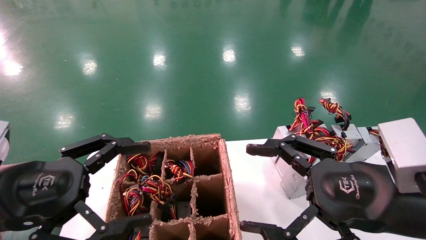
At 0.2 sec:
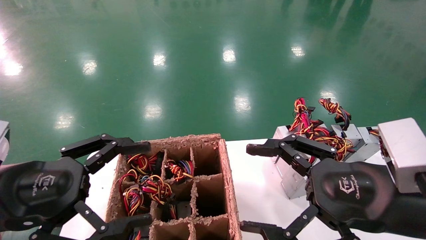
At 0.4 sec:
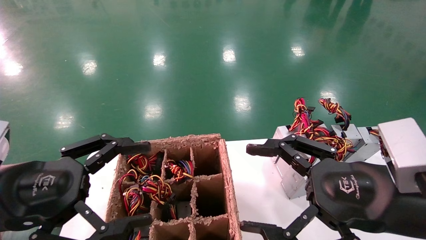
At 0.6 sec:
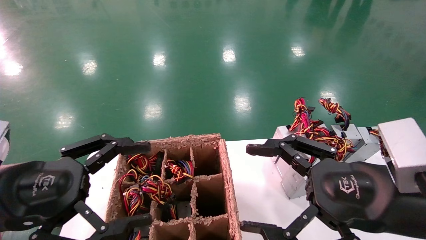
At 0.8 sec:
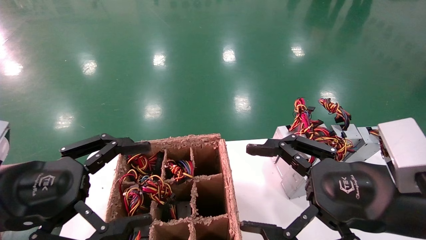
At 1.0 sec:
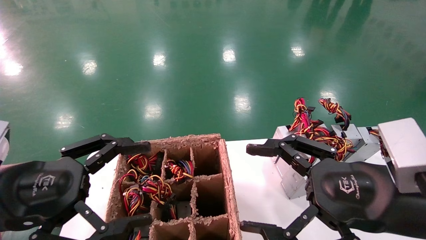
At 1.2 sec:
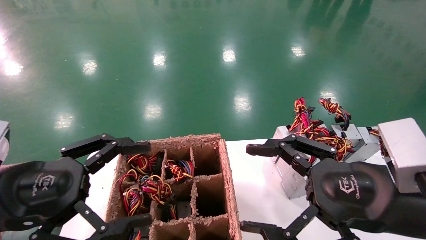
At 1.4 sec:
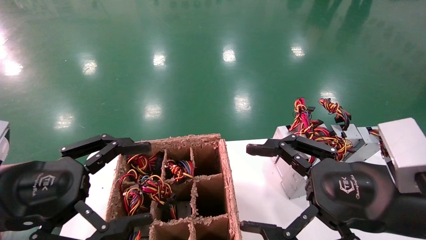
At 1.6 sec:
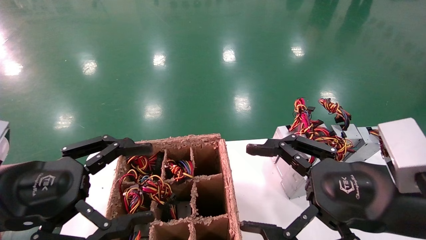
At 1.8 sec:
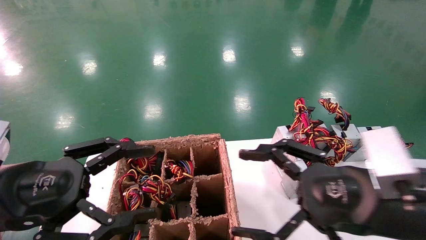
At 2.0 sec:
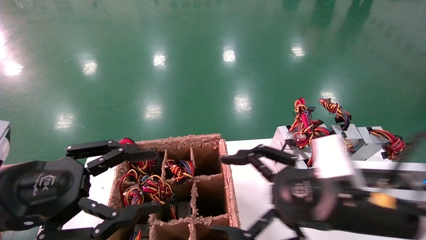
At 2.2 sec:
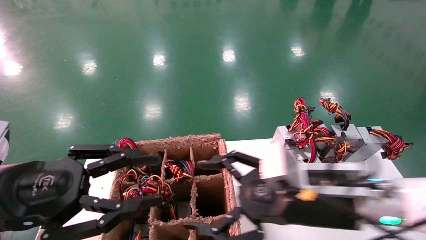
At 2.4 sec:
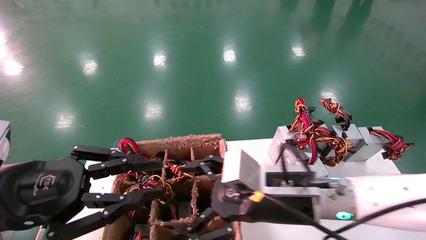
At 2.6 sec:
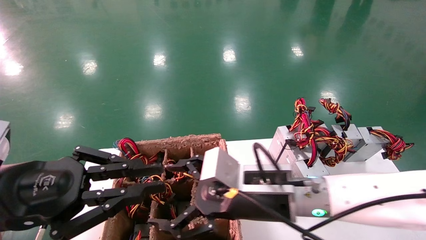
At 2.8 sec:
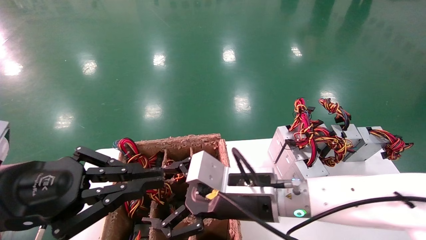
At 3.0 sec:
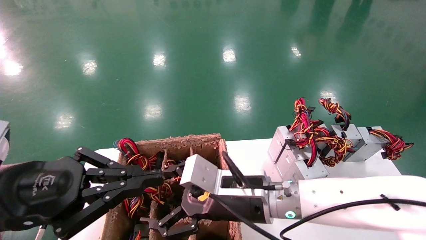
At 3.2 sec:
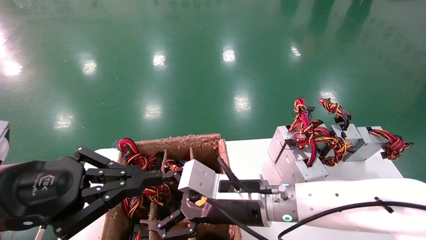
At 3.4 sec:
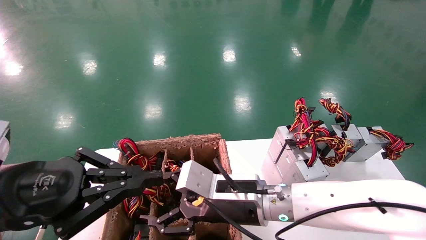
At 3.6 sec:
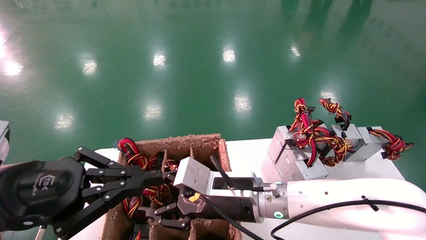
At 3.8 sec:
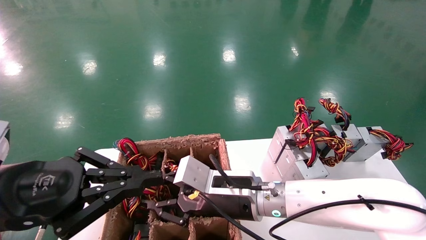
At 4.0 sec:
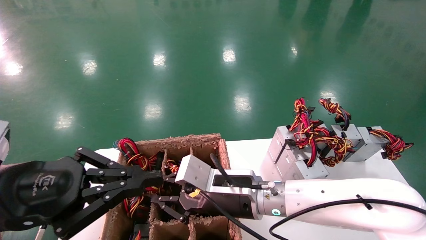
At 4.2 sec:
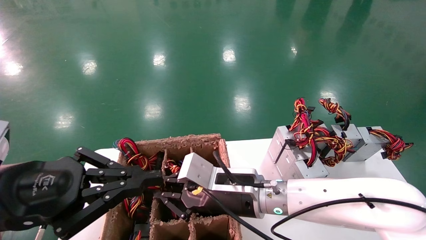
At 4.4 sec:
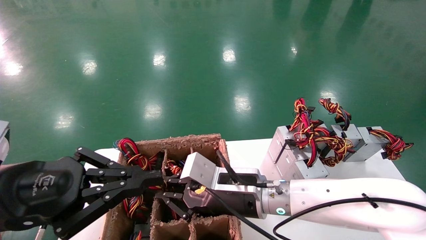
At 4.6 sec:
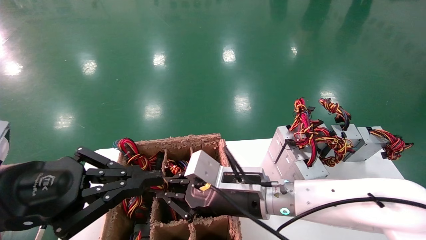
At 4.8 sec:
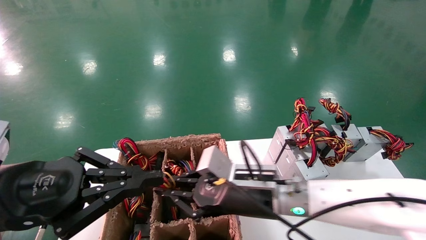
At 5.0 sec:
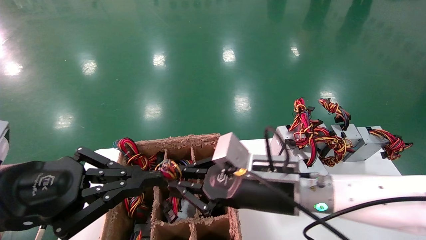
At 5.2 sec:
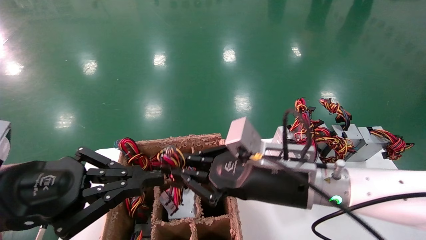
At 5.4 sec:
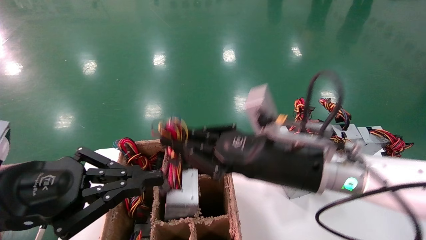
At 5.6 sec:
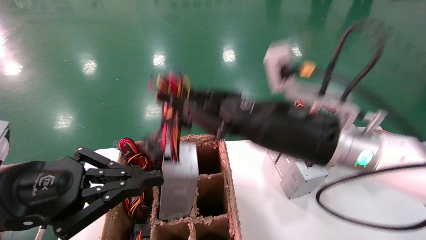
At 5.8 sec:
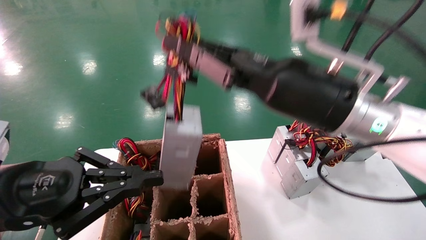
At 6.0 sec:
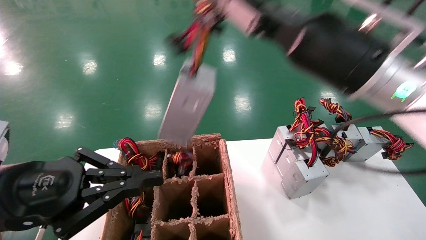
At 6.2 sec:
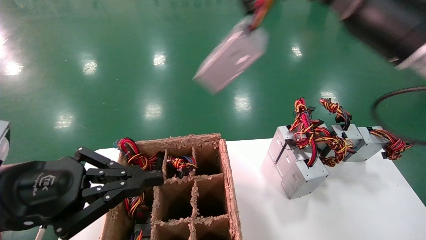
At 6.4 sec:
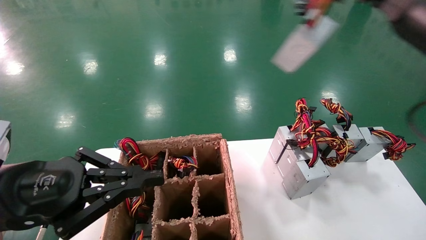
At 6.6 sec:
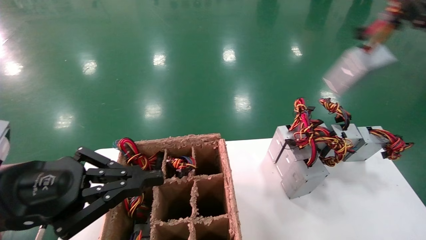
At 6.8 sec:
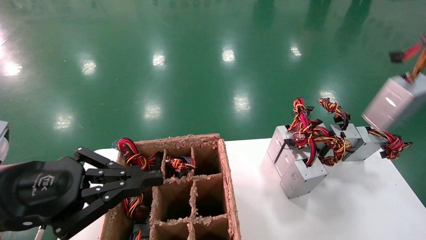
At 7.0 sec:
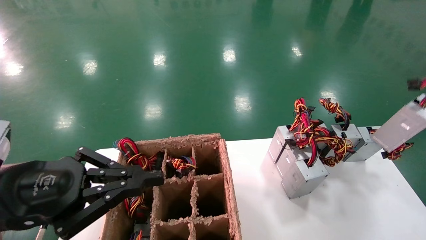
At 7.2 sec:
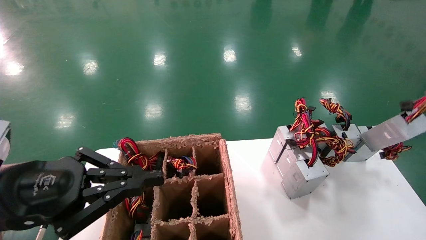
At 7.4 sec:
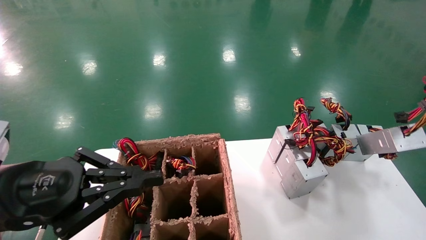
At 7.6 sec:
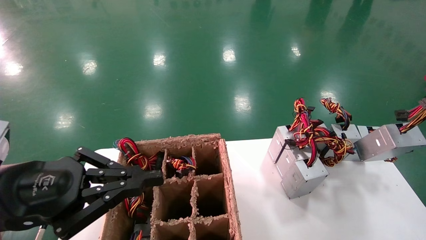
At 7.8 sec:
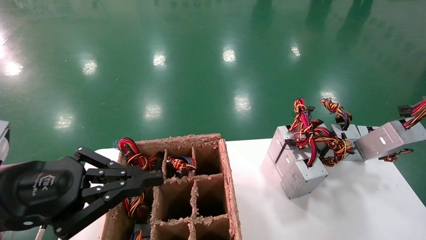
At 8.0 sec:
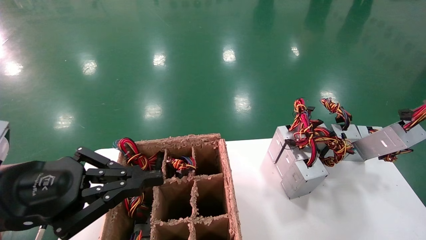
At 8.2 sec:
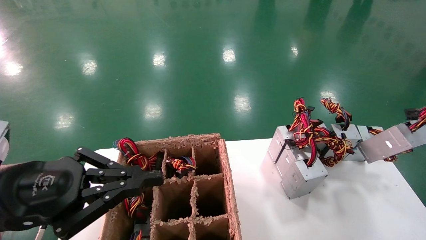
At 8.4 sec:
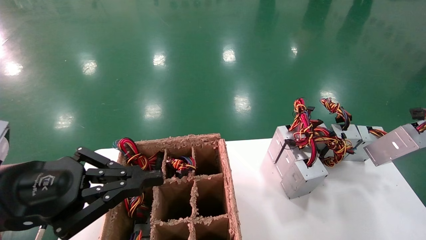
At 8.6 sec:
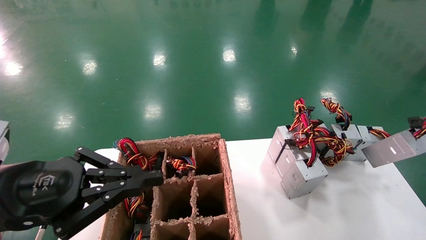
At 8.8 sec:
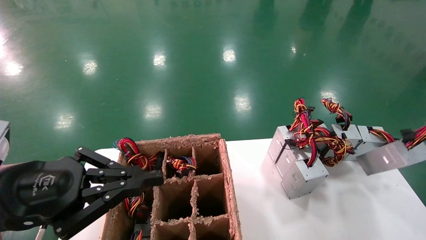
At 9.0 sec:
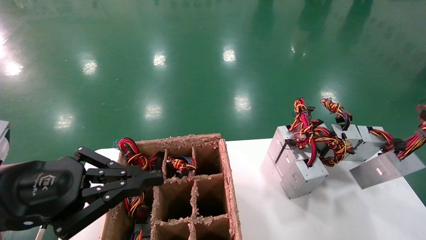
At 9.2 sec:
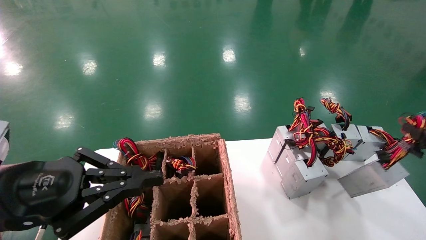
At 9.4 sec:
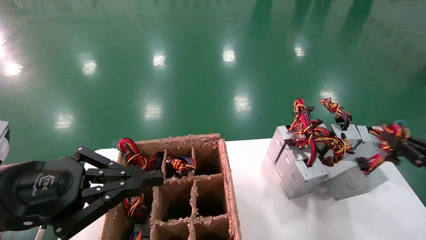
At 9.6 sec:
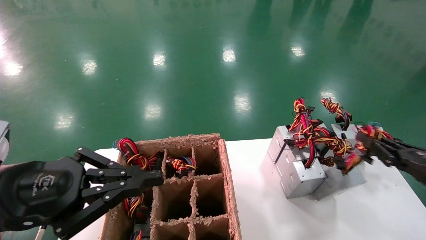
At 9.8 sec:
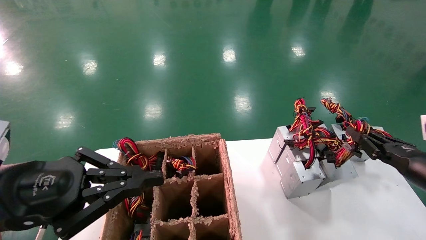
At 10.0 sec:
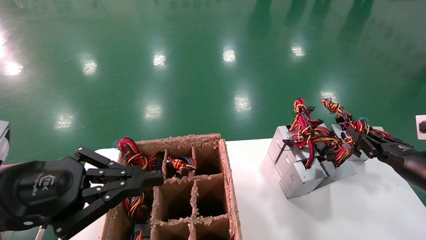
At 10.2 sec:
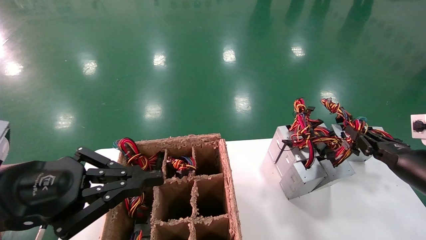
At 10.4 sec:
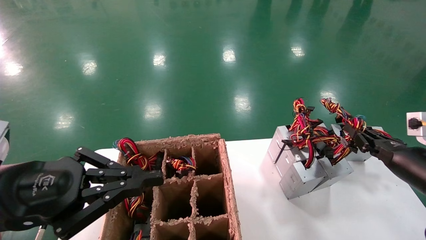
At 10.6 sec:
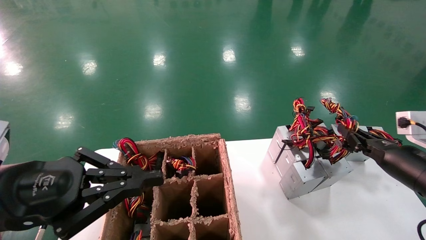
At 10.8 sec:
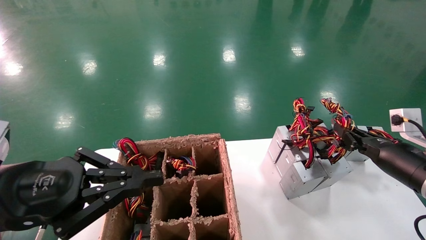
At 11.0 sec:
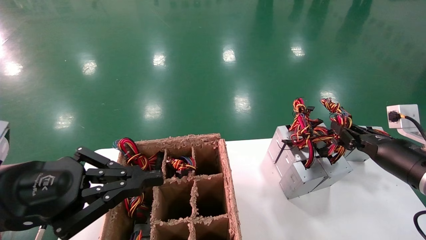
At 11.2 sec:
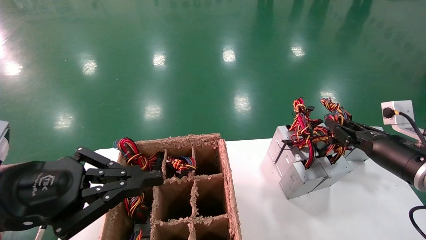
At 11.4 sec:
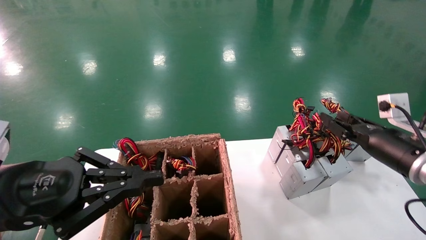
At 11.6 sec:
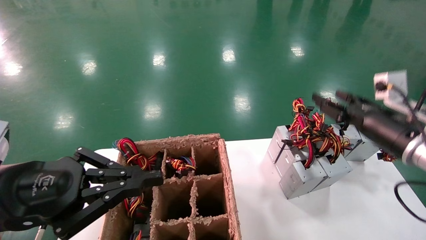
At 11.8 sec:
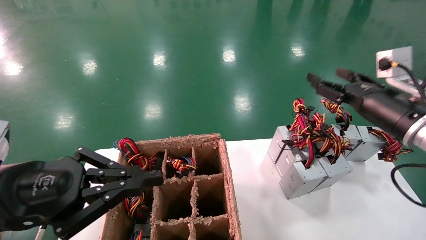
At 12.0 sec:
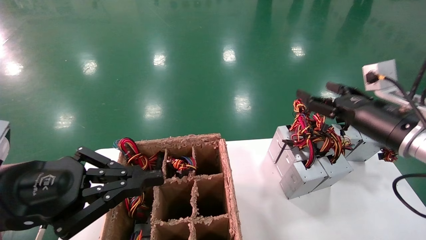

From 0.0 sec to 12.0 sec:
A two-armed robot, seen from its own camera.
Step, from 2.0 sec to 4.2 sec: Grab the main unit power supply from the containment box.
Step, from 4.4 sec to 11.6 sec: Place the main unit power supply in the designated area.
From 0.0 sec to 1.6 sec: Both grippers stay put.
From 1.6 sec to 3.0 sec: The left gripper closes up. The right gripper moves to the left, forward and downward, about 20 cm.
From 3.0 sec to 4.4 sec: The right gripper closes its fingers.
From 4.4 sec to 6.0 sec: The right gripper goes some 25 cm upward and to the right.
From 6.0 sec to 7.6 sec: The right gripper is displaced to the right by approximately 30 cm.
From 7.6 sec to 9.0 sec: The grippers stay close to where they were, moving slightly.
From 9.0 sec to 10.4 sec: The right gripper goes some 15 cm forward, to the left and downward.
From 10.4 sec to 12.0 sec: The right gripper goes approximately 10 cm upward and to the left, and opens.

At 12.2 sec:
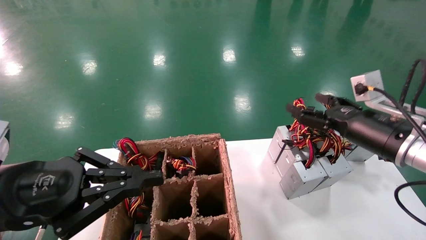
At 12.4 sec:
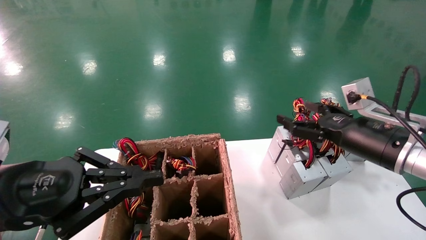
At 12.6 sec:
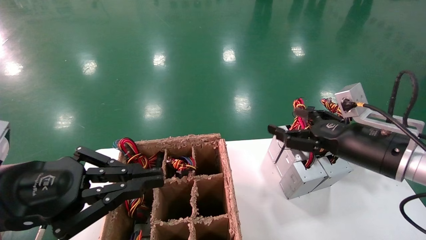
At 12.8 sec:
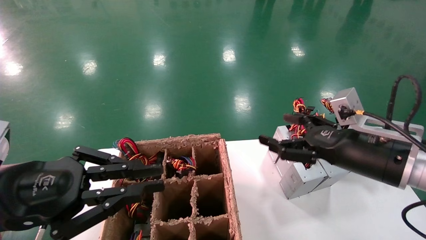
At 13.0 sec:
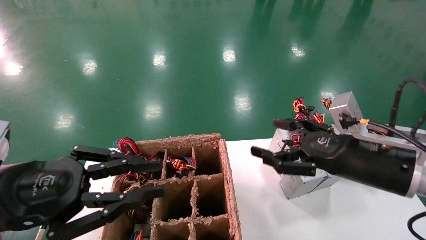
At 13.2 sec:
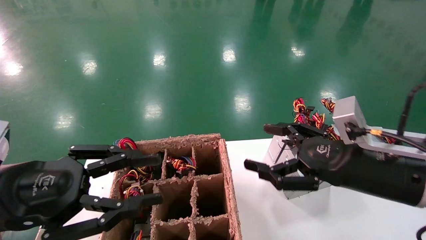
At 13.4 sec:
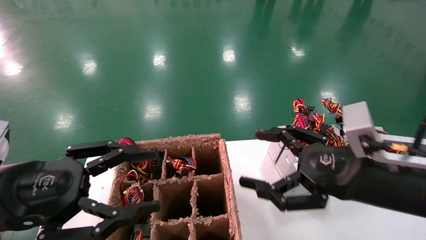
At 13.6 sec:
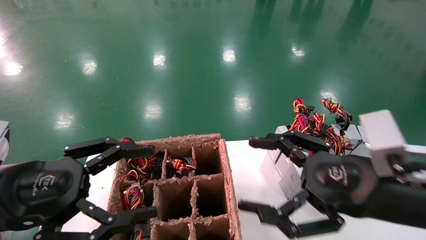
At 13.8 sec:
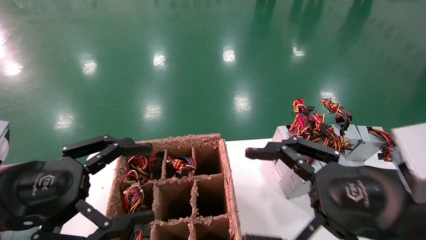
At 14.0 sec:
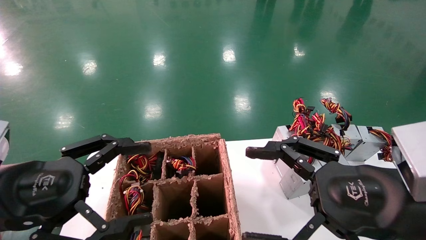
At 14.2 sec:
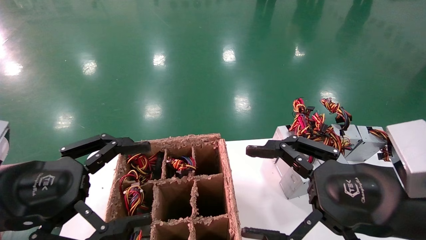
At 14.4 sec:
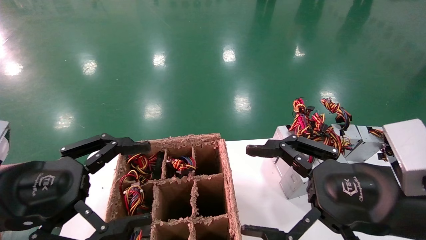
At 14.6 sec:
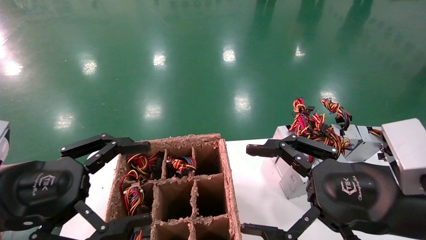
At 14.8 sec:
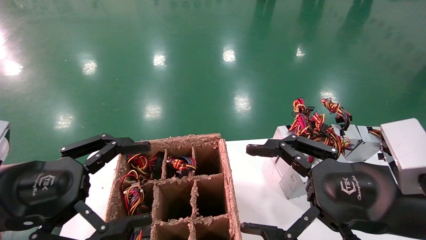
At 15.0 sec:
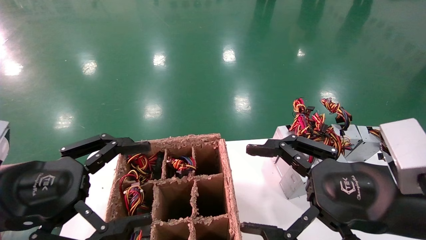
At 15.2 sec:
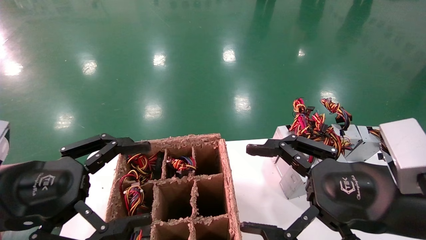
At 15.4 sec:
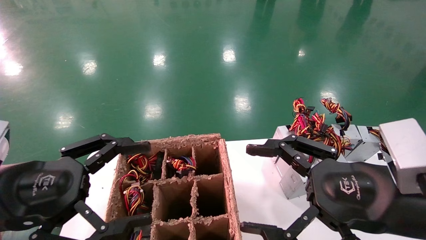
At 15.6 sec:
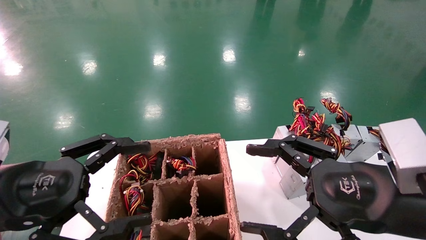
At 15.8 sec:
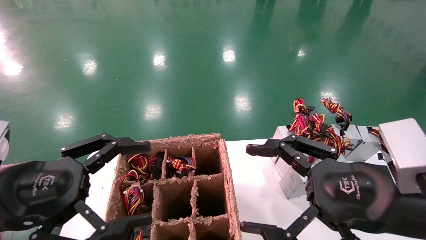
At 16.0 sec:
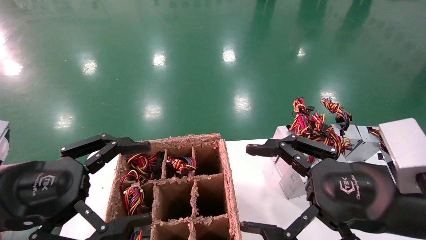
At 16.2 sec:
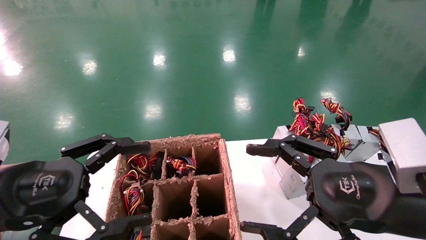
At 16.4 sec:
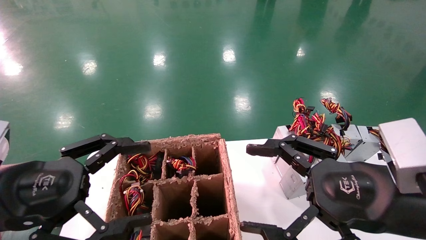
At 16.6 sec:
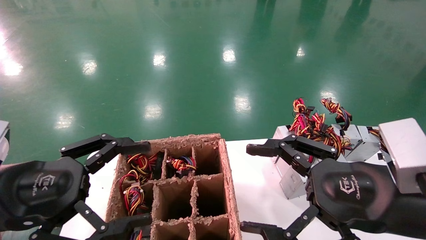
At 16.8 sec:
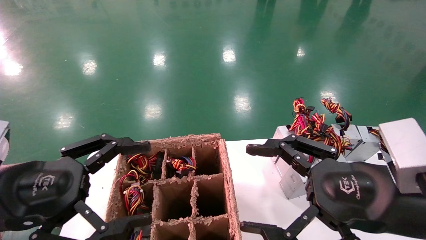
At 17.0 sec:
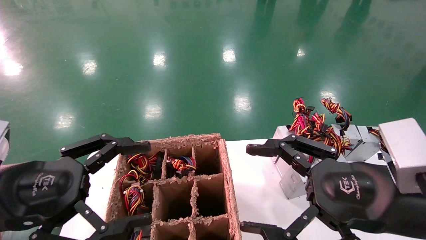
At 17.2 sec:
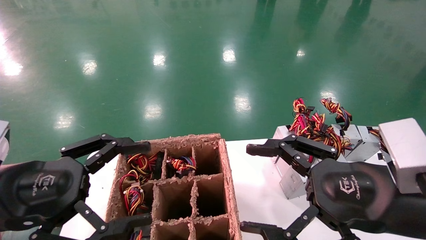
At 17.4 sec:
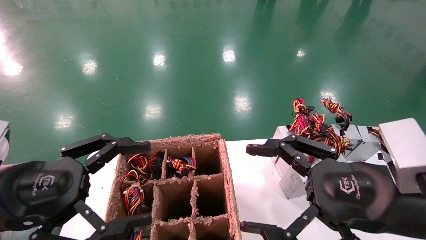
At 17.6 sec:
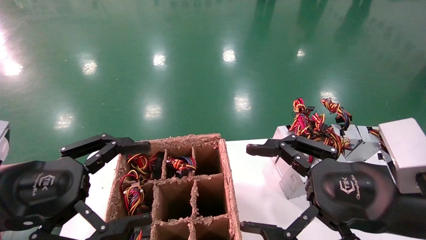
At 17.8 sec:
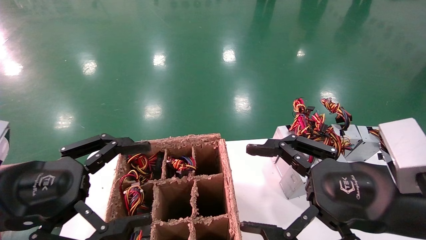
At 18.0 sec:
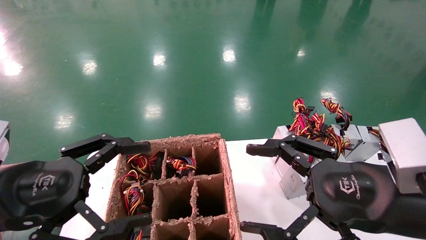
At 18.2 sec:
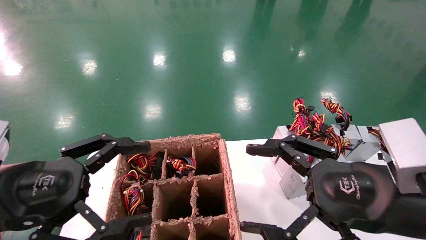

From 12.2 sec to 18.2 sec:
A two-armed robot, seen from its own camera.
From 12.2 sec to 13.8 sec: The left gripper opens its fingers, while the right gripper heads backward and to the left, covering approximately 15 cm.
From 13.8 sec to 18.2 sec: Both grippers stay about where they are.
